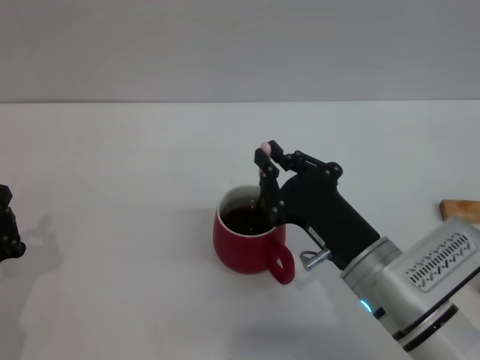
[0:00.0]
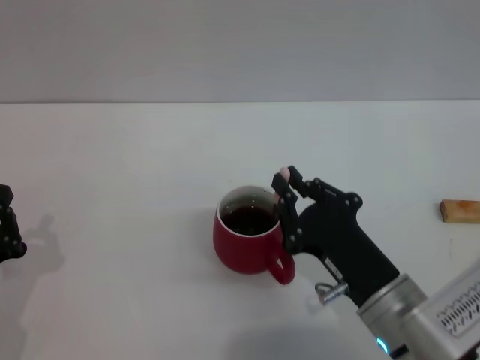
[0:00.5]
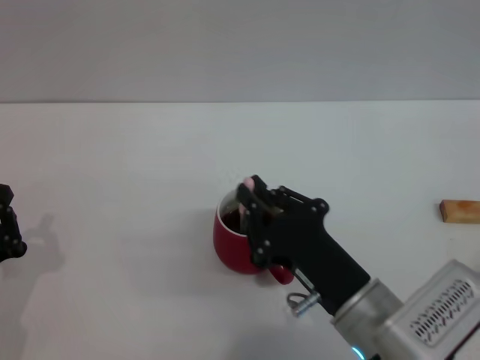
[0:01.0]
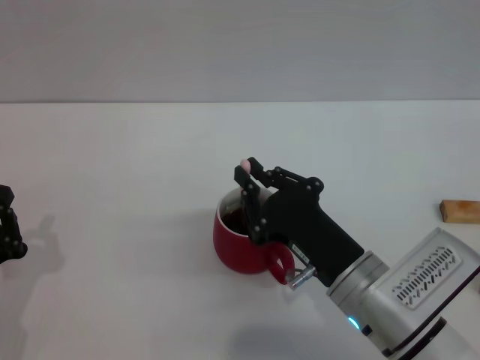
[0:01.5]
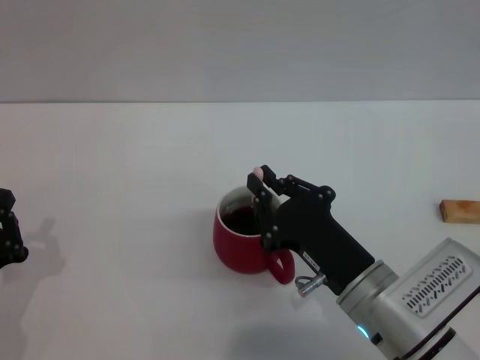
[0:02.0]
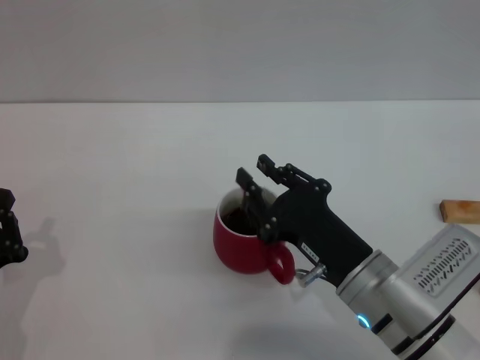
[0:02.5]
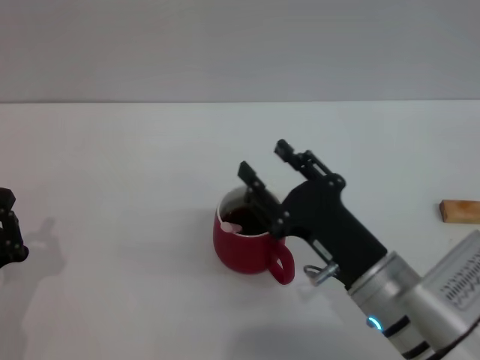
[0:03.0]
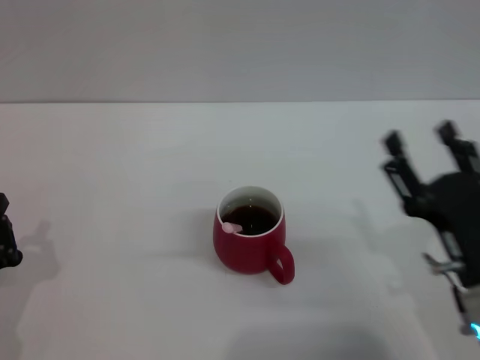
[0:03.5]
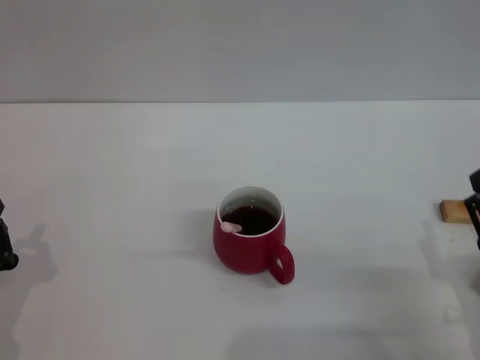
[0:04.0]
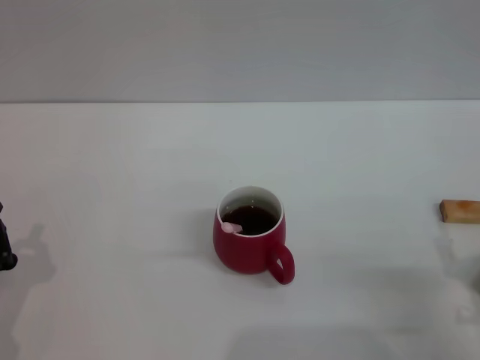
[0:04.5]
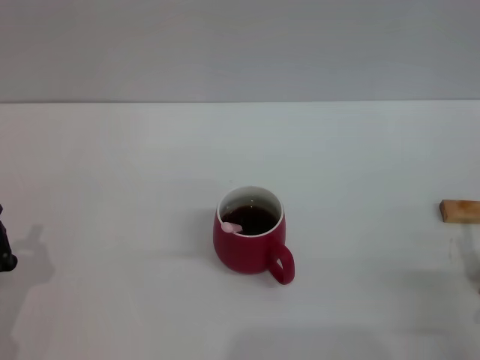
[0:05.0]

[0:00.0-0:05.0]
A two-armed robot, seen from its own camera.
Task of the whole recording: Move the red cup to the center, lift the pink spoon, stir it three times in the cup, and put the spoon into the cup.
Step, 0:00.0 to 0:03.0: Stir the coffee in the cup with the right gripper.
0:00.0 to 0:02.5: The grippers move only a little.
0:02.5 to 0:05.0: The right gripper shifts some 15 cm to the right and backward, and opens.
